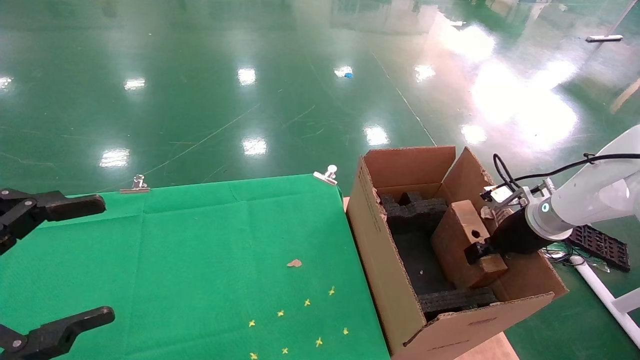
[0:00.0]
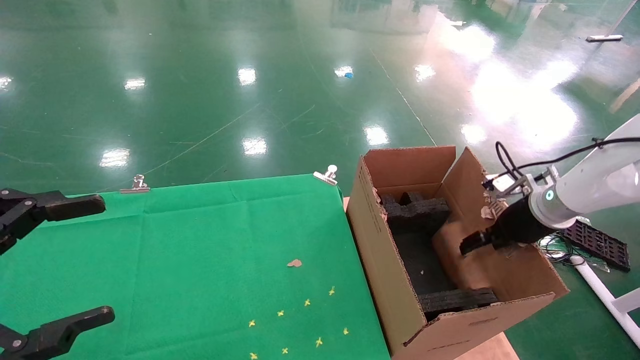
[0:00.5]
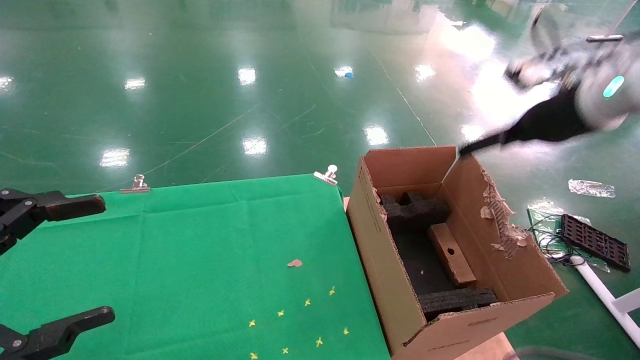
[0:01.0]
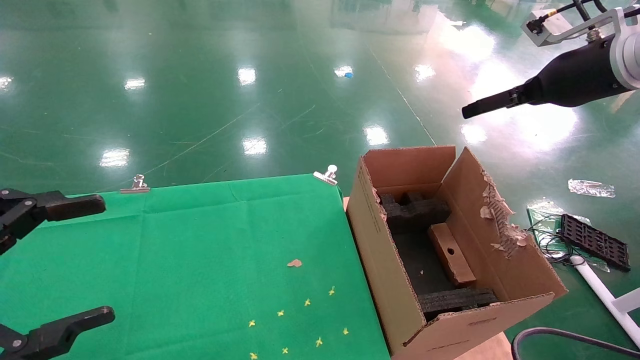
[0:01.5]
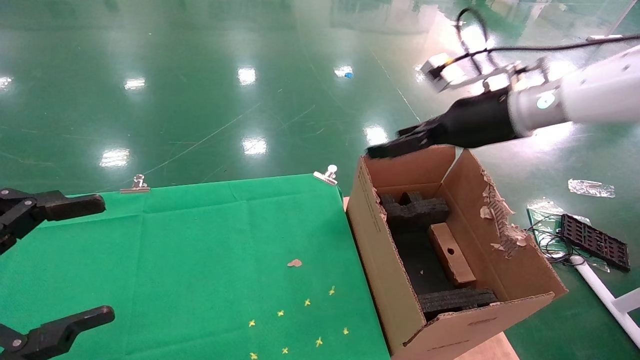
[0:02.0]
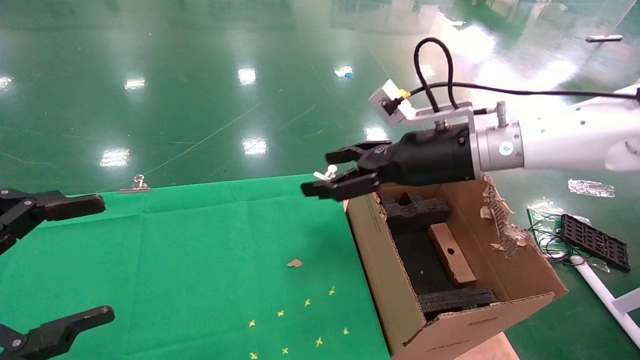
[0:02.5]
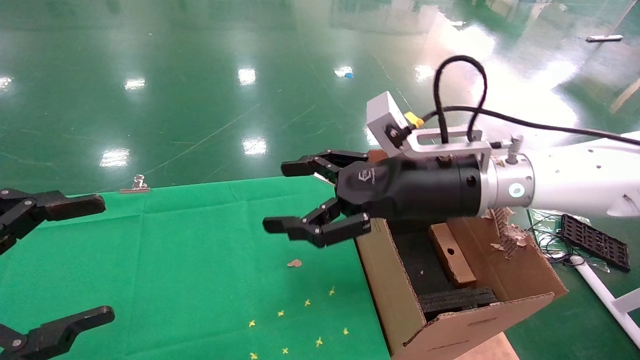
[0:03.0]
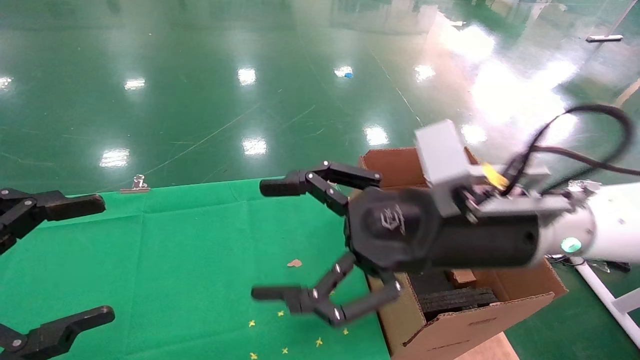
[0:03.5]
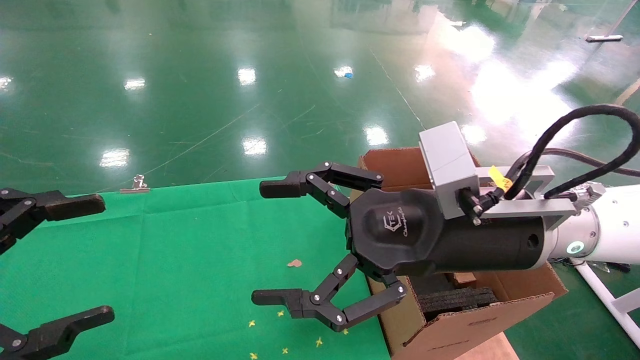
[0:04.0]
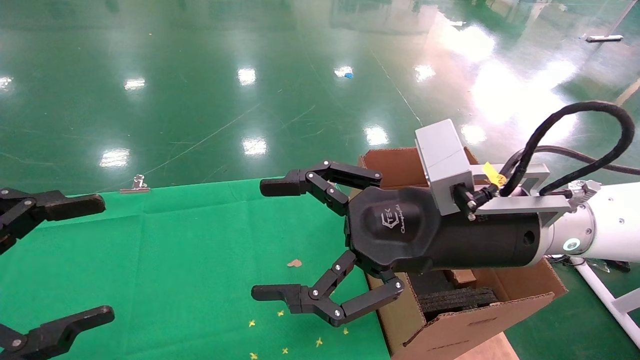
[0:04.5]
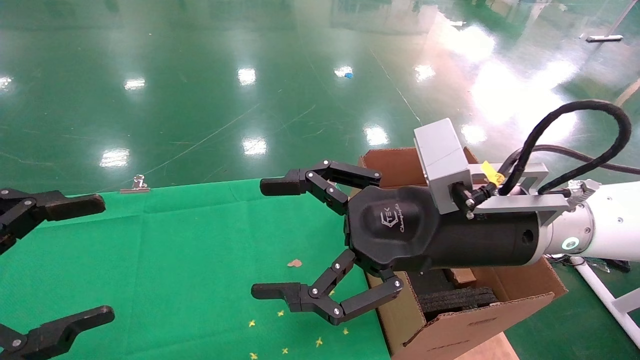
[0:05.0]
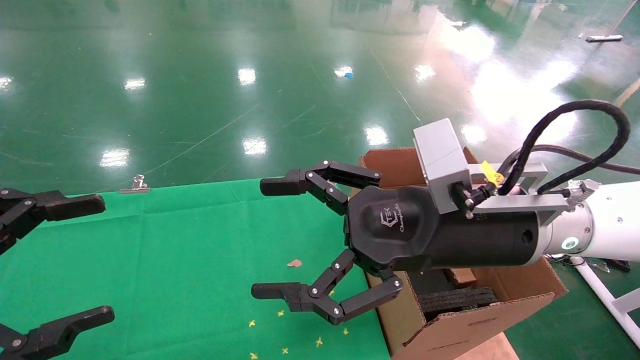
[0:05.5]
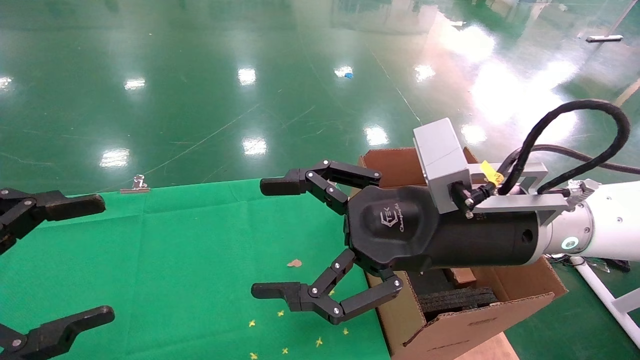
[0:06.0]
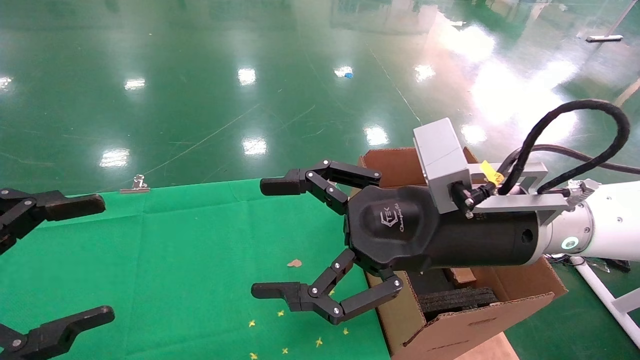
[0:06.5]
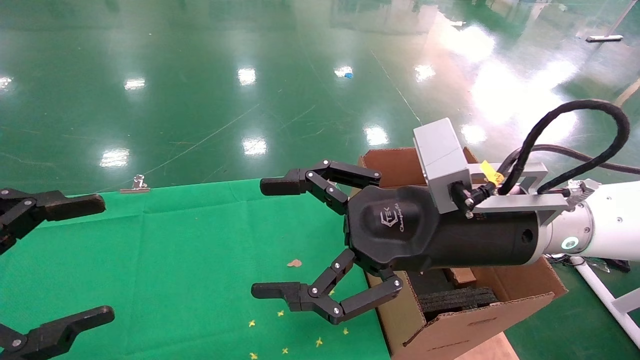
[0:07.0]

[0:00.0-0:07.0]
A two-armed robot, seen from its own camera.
Task of the whole recording: using a robotic arm to pick up a cardboard box and palace it the carton.
0:00.0 to 0:02.0: The right gripper shifts roughly 20 cm upward and to the left, and opens up.
0:02.0 to 0:03.5: The right gripper heads backward, to the left and downward, covering some 20 cm.
0:03.5 to 0:07.0: Both grippers stay put.

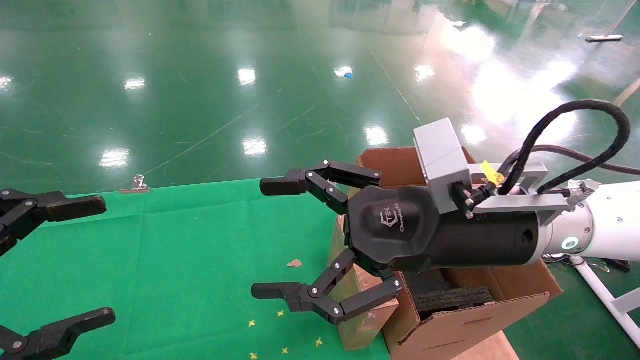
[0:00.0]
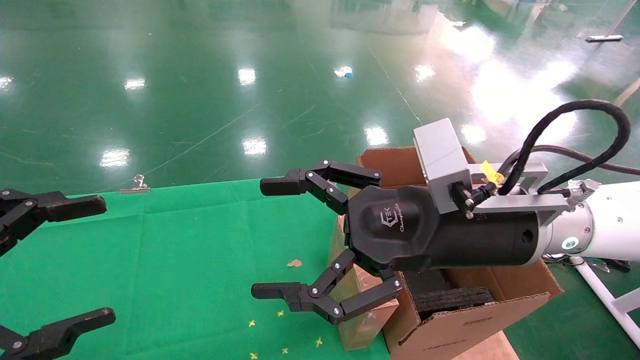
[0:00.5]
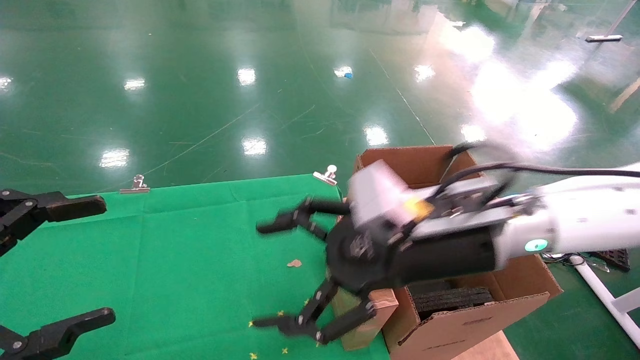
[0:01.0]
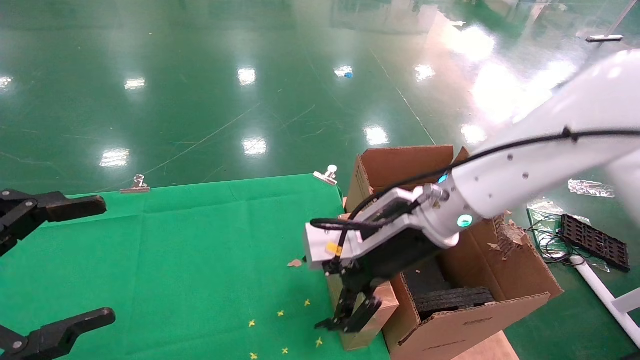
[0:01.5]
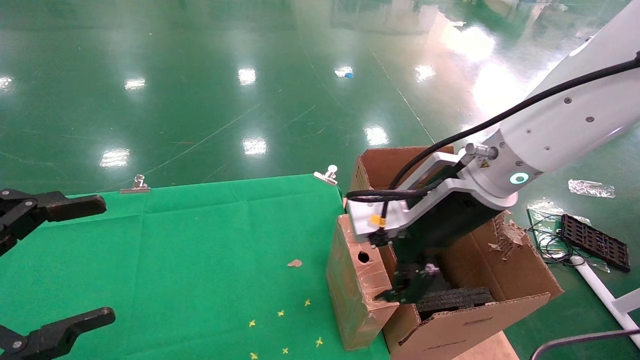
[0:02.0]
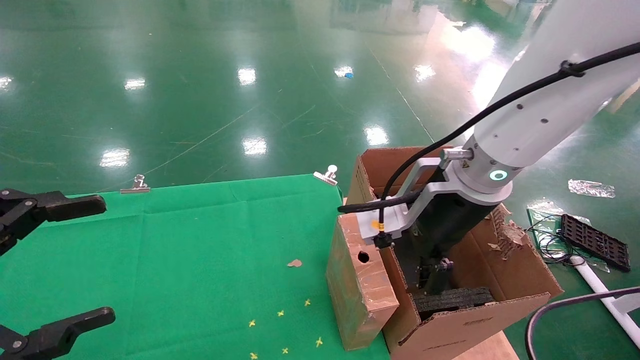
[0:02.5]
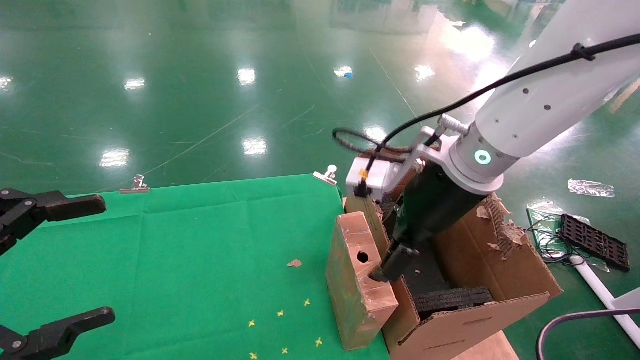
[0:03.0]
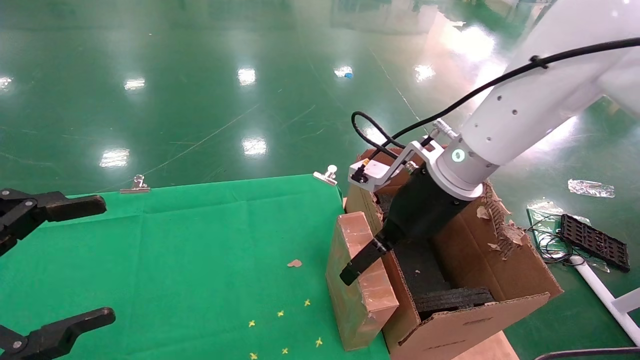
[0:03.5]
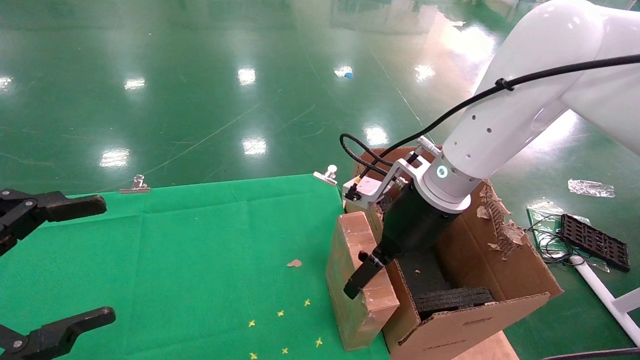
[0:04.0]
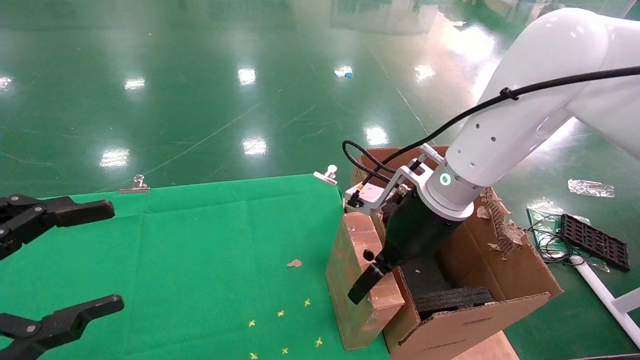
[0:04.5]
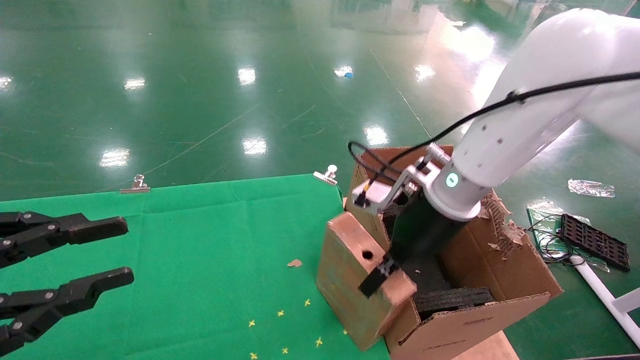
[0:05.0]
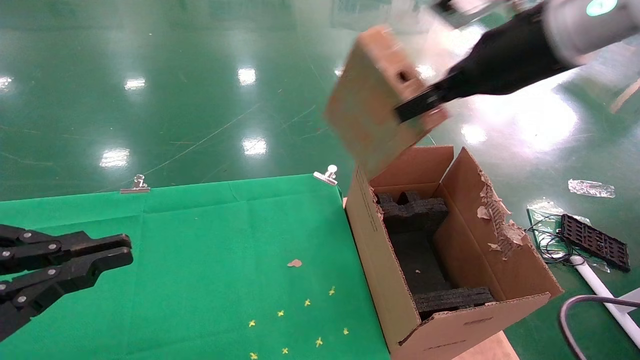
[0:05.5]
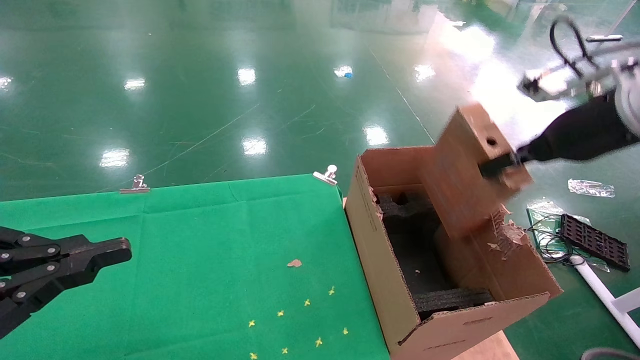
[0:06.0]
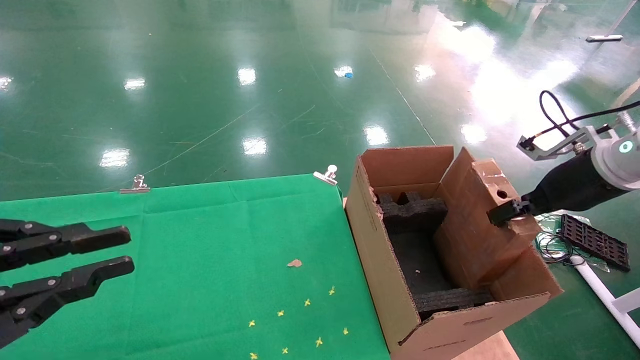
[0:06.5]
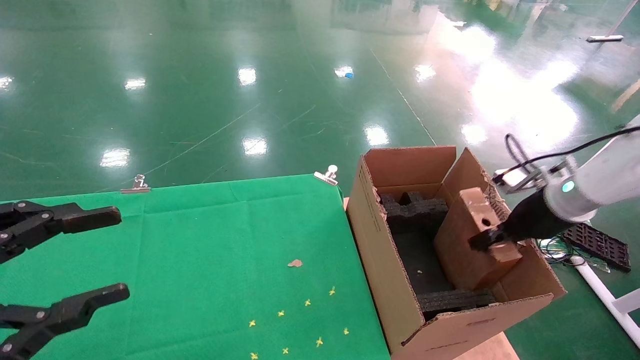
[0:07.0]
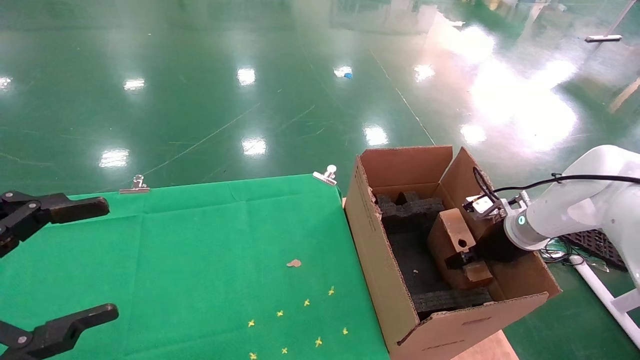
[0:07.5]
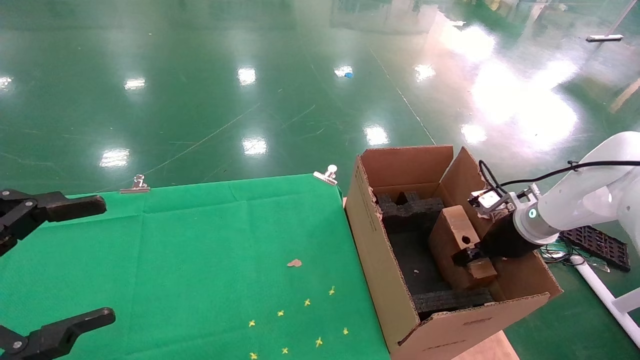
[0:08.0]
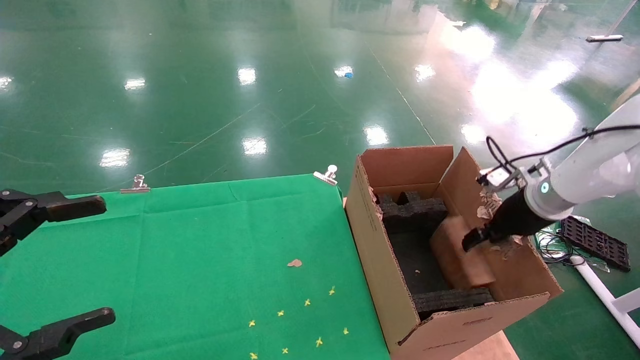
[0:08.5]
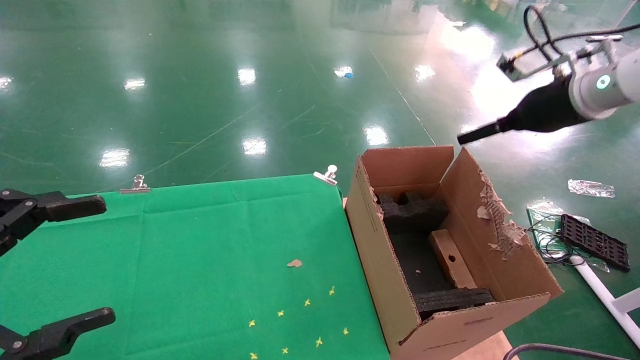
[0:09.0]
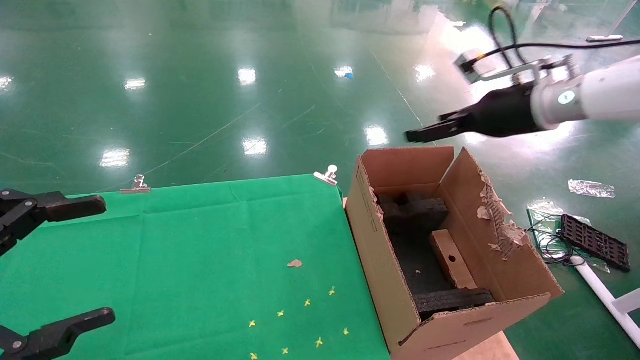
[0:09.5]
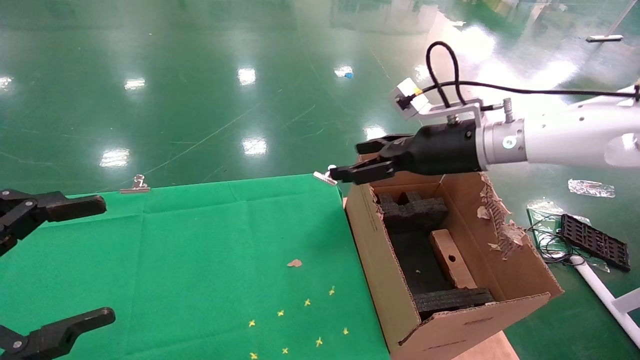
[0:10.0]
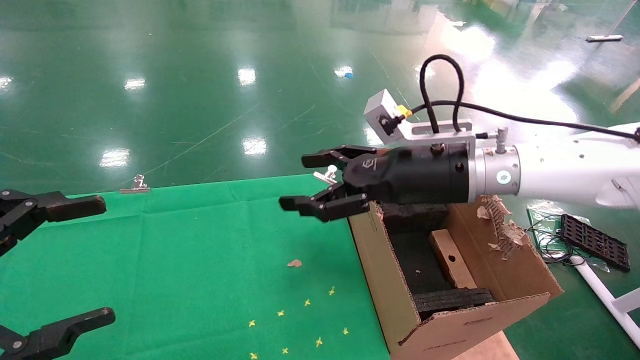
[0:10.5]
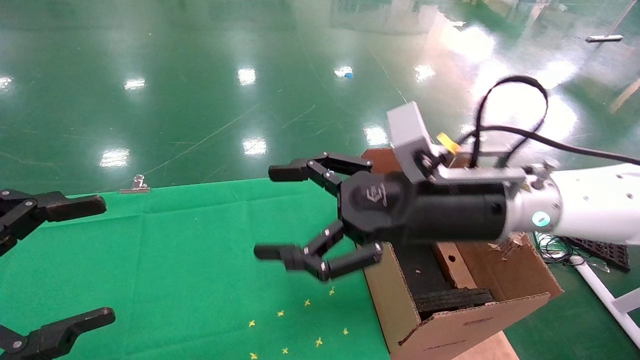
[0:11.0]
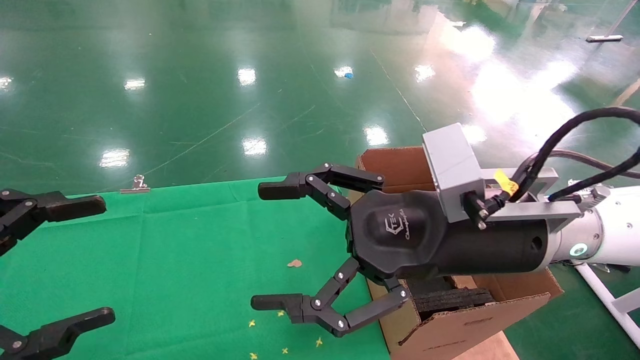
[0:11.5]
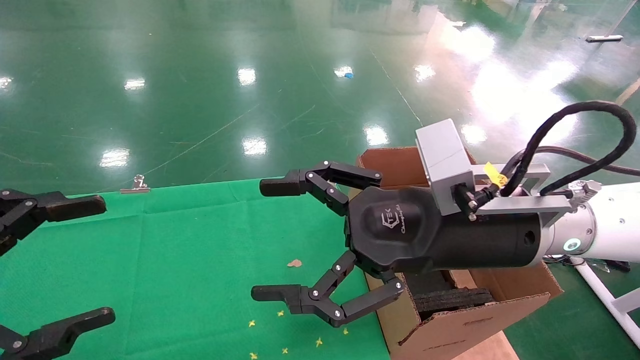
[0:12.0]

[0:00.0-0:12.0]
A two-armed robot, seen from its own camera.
Task of the whole recording: using a robotic arm to pick up a cardboard box and palace it the carton.
Step, 0:01.0 to 0:05.0: Pick up the mouse and the power cord paper box.
Step, 0:05.5 to 0:10.5: Place the mouse and the power cord paper box into the container.
0:00.0 to 0:02.0: The right gripper moves forward, about 5 cm.
0:02.0 to 0:04.0: The right gripper shifts about 5 cm forward.
0:04.0 to 0:06.0: The right gripper travels to the right and upward by approximately 25 cm, and closes, while the left gripper closes.
0:06.0 to 0:08.0: The right gripper is displaced downward and forward by approximately 20 cm; the left gripper opens up.
0:08.0 to 0:10.0: The right gripper travels to the left and upward by roughly 20 cm, and opens.
0:10.0 to 0:12.0: The right gripper shifts some 15 cm backward and to the left.

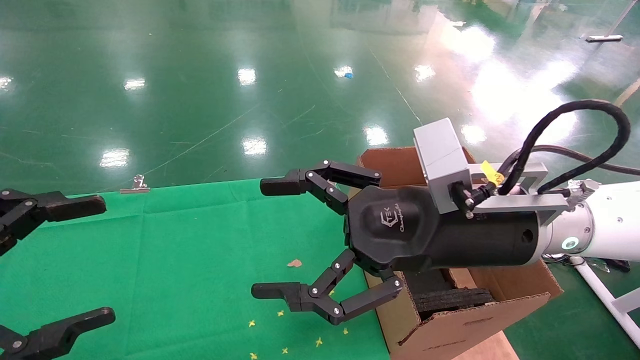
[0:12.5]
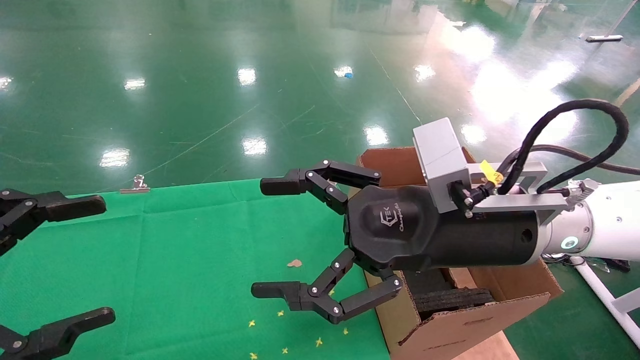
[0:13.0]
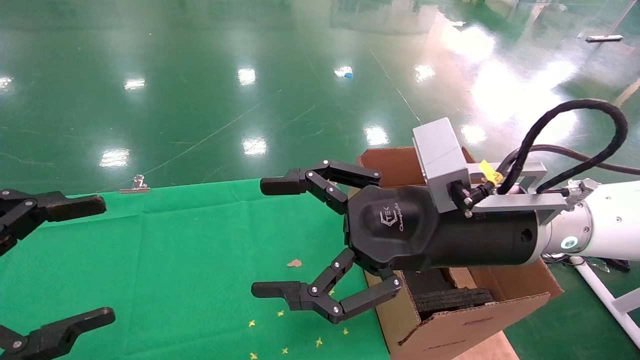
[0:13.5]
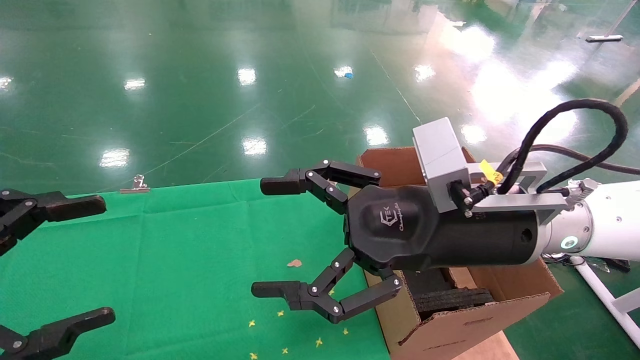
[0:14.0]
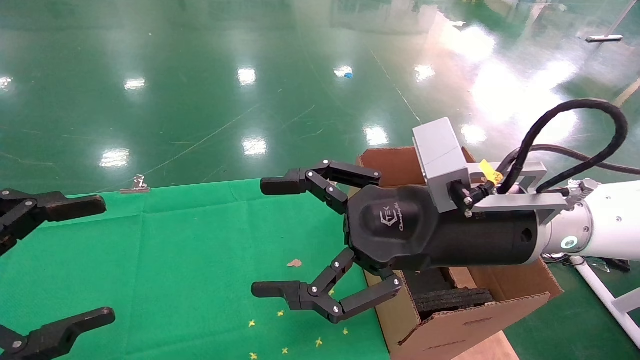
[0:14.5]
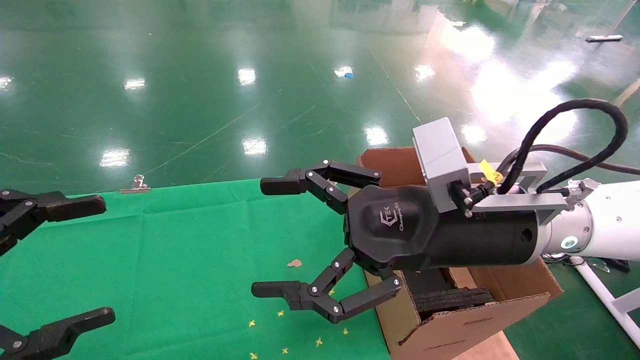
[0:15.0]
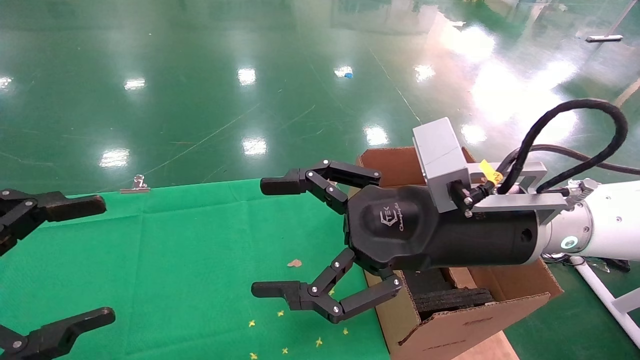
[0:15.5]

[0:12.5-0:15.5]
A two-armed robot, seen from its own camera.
Task of the whole recording: using a robotic arm to pick up a cardboard box and palace it the carton.
0:12.5 to 0:15.5: Both grippers stay about where they are.
